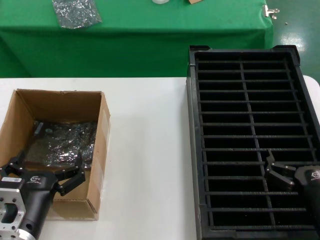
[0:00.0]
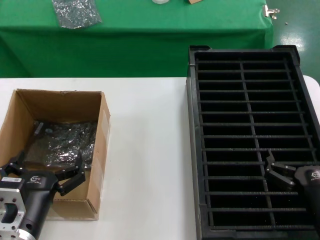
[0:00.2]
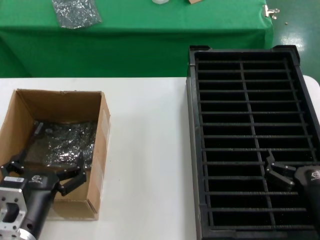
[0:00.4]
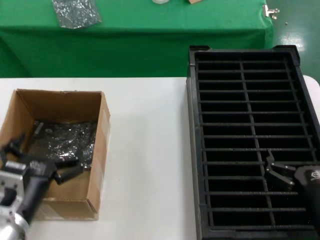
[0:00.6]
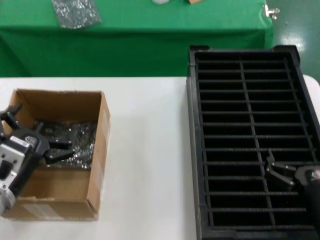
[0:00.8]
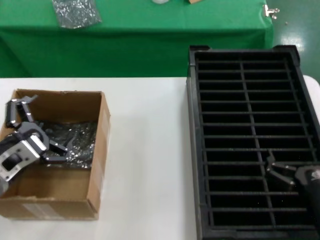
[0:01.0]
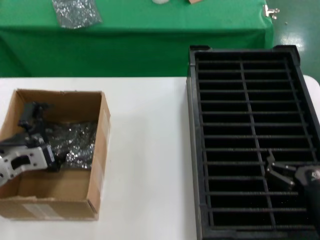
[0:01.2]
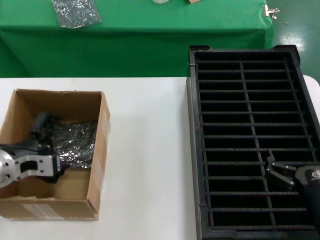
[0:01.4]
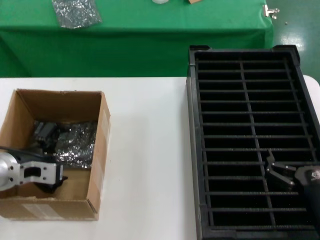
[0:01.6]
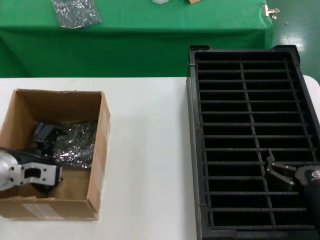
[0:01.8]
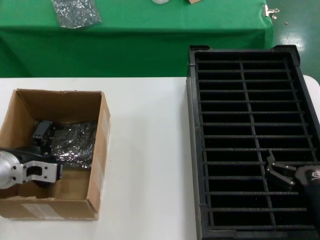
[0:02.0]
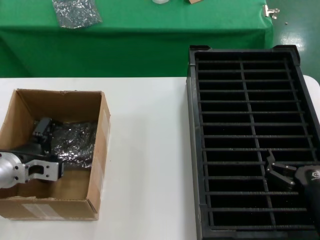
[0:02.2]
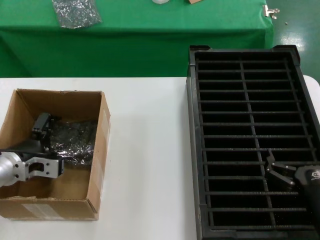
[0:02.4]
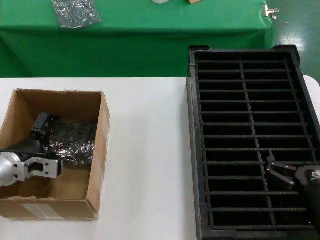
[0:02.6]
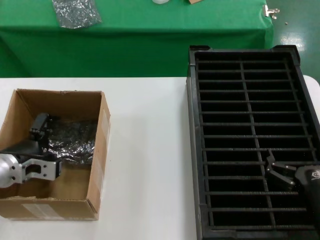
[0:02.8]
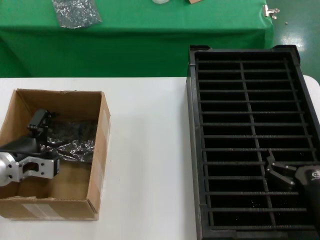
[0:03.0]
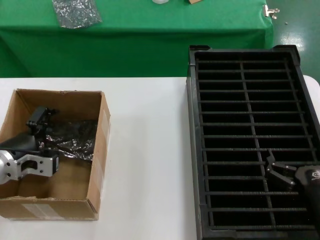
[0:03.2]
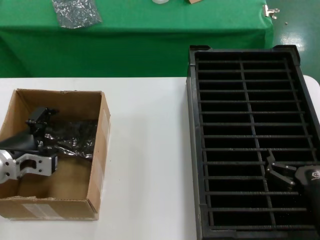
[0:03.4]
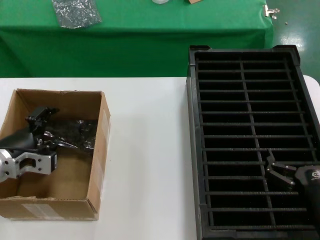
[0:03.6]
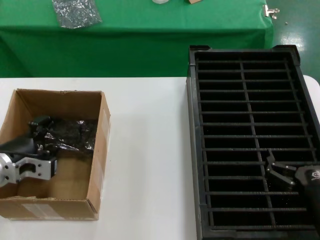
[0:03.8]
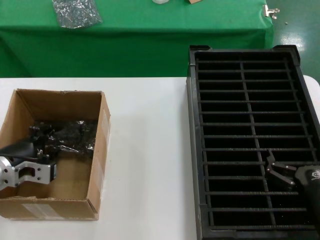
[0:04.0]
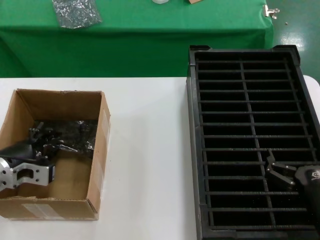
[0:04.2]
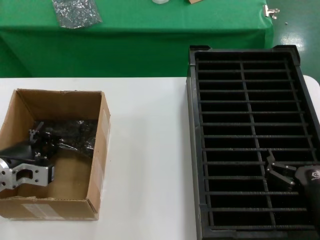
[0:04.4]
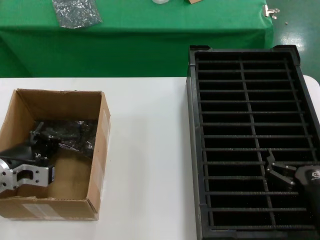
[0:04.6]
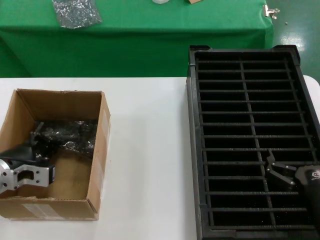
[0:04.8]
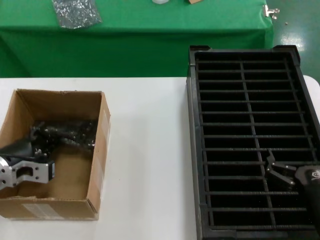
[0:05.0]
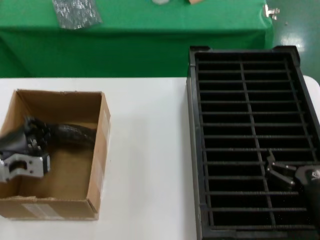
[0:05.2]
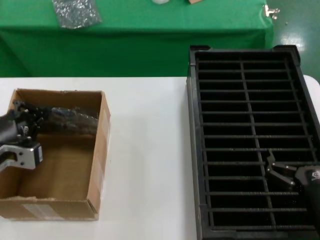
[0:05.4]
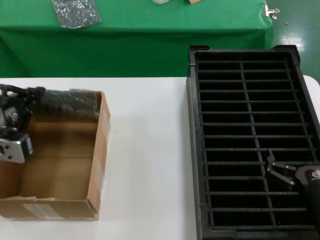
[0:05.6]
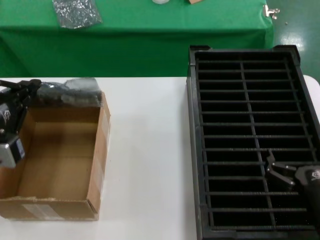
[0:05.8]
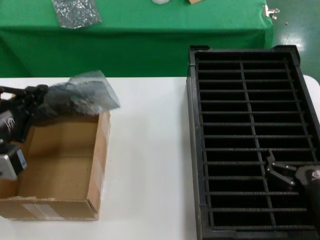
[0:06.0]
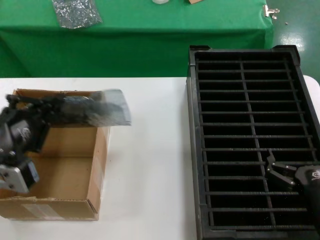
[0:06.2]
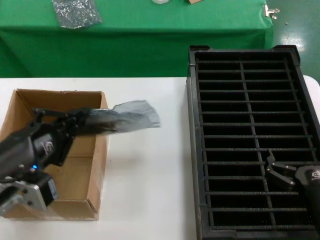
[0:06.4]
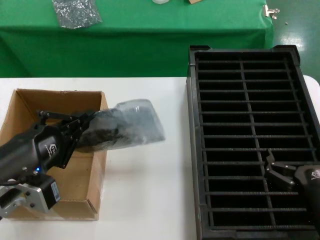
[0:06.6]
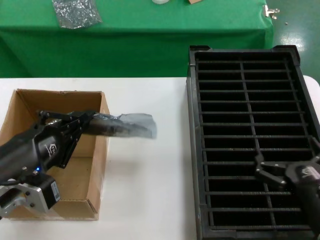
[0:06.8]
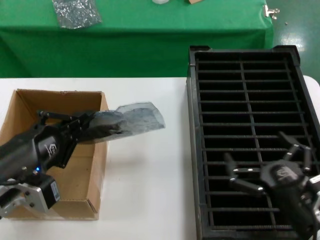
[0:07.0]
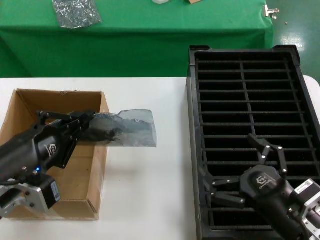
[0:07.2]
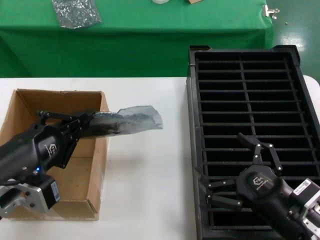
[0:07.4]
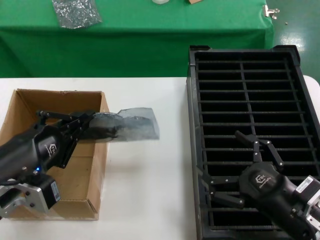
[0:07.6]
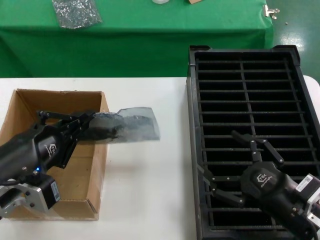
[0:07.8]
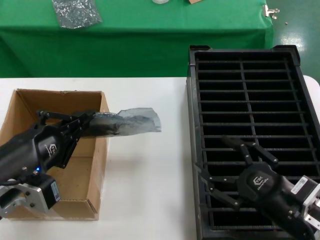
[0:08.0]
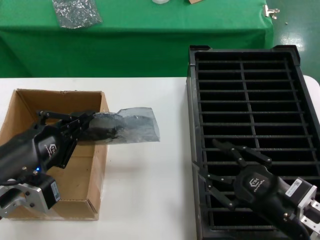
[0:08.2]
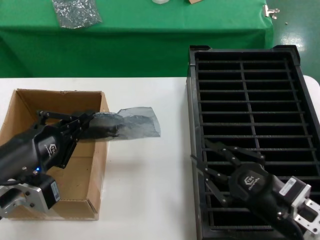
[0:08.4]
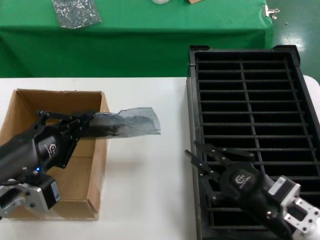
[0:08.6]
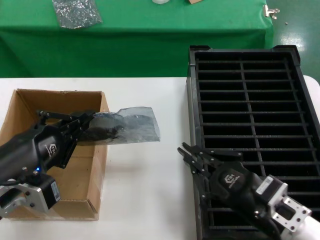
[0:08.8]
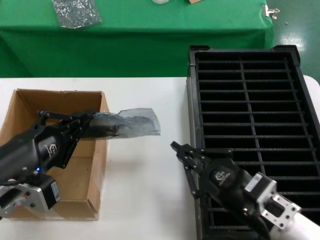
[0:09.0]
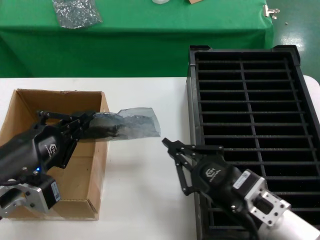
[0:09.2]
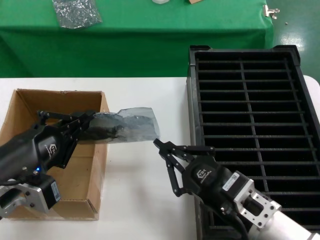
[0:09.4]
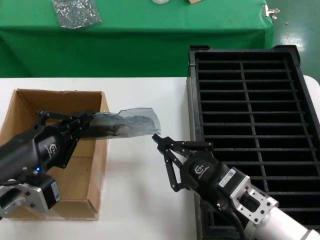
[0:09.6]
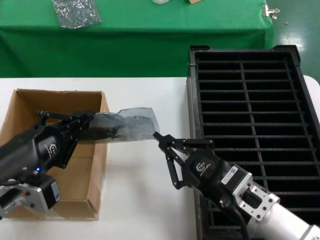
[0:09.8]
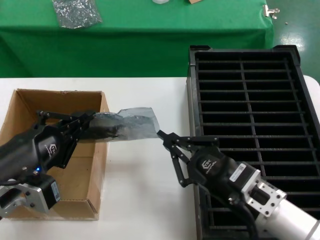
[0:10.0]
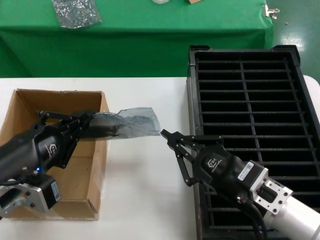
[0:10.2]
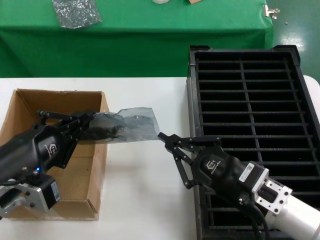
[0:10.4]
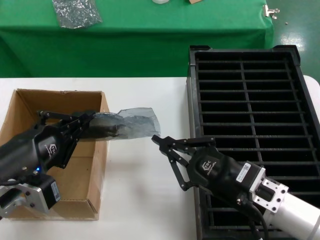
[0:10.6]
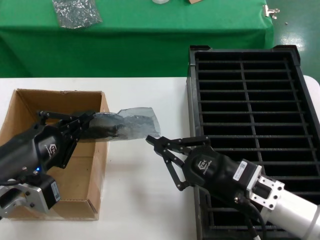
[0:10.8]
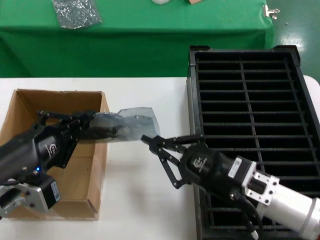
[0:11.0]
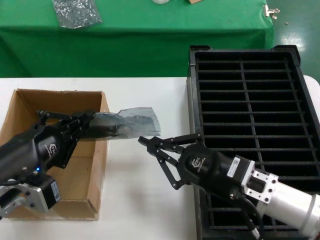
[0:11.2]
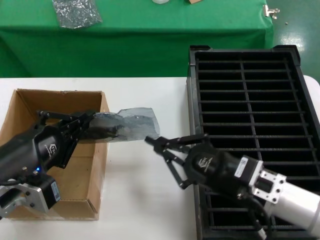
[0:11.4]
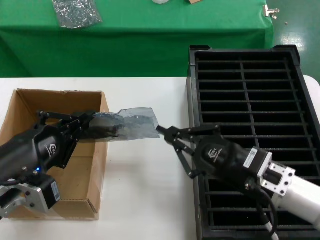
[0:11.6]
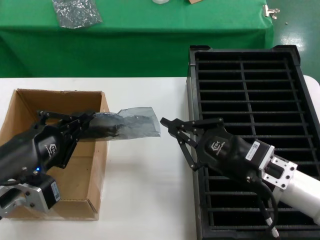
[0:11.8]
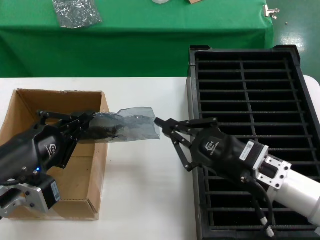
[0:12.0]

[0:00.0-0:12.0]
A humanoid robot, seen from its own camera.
Task of the whole recording: take out graphics card from box remove packaging put into black container.
Step, 0:00.0 to 0:04.4: Grasp the bag.
Step, 0:04.8 to 0:06.8: Lift the bag.
0:00.0 to 0:01.6: The left hand moves forward, to the left and upward, approximately 20 cm.
0:01.6 to 0:04.4: There are only small adjustments of the hands.
0:04.4 to 0:06.0: The left hand shifts about 15 cm backward and upward.
0:06.0 to 0:07.6: The left hand moves roughly 5 cm.
0:07.6 to 0:09.0: The right hand moves approximately 5 cm.
0:09.0 to 0:10.4: There are only small adjustments of the hands.
0:10.4 to 0:12.0: The hands stay close to where they were, moving slightly.

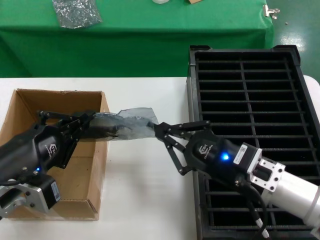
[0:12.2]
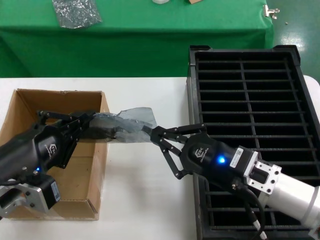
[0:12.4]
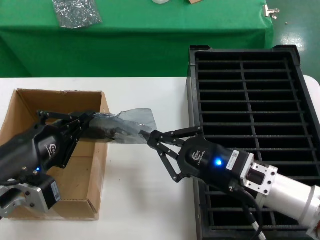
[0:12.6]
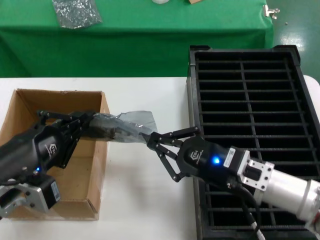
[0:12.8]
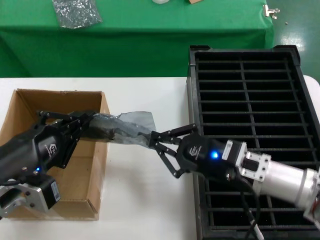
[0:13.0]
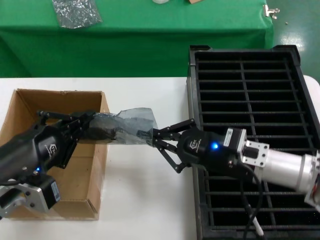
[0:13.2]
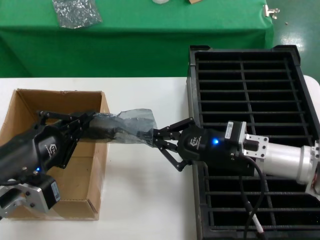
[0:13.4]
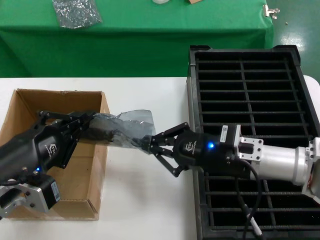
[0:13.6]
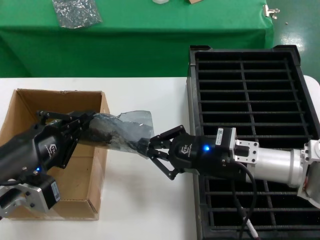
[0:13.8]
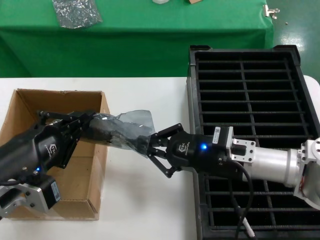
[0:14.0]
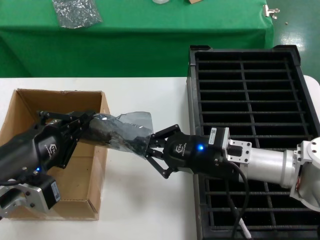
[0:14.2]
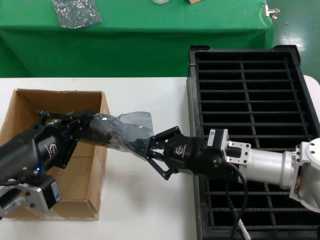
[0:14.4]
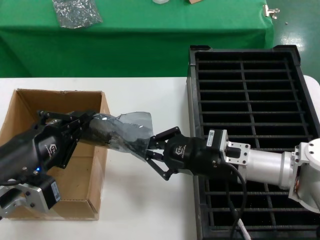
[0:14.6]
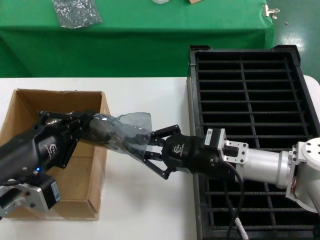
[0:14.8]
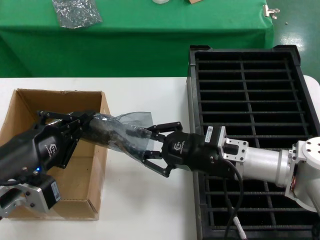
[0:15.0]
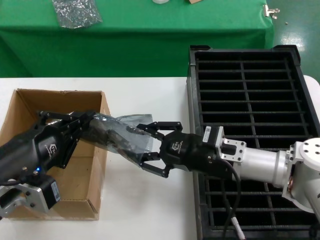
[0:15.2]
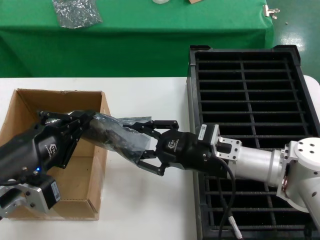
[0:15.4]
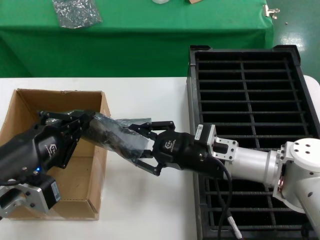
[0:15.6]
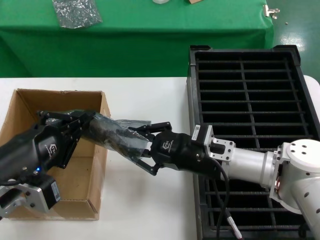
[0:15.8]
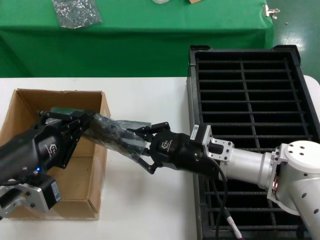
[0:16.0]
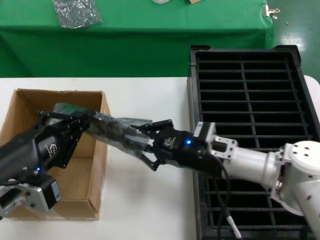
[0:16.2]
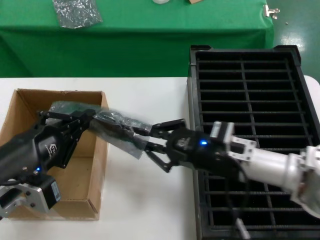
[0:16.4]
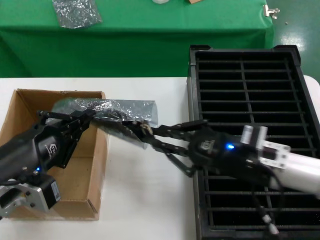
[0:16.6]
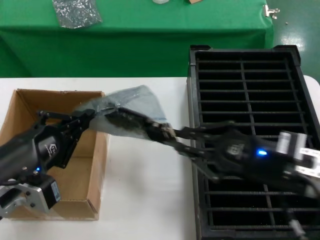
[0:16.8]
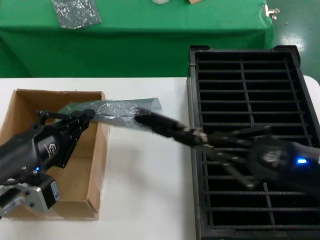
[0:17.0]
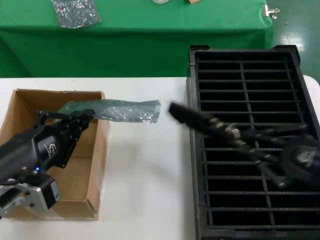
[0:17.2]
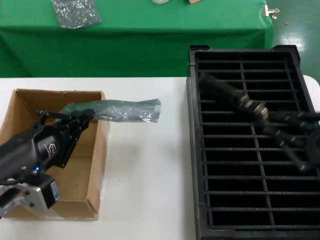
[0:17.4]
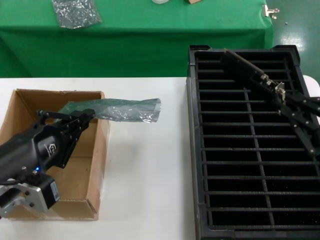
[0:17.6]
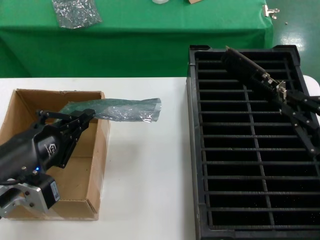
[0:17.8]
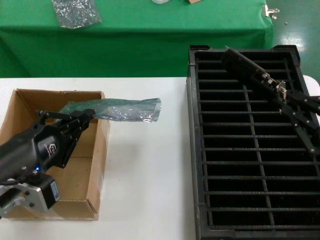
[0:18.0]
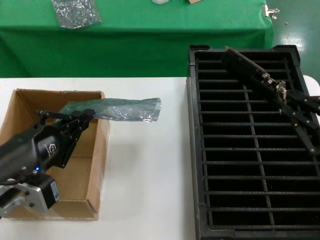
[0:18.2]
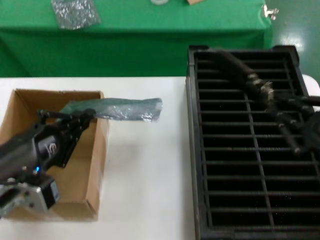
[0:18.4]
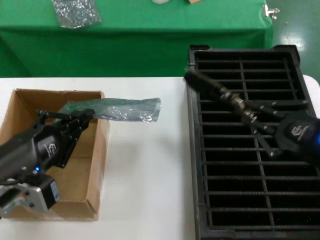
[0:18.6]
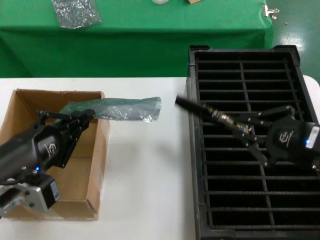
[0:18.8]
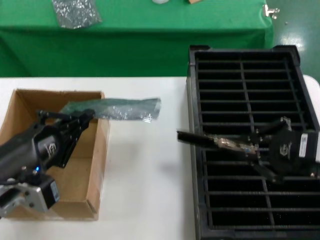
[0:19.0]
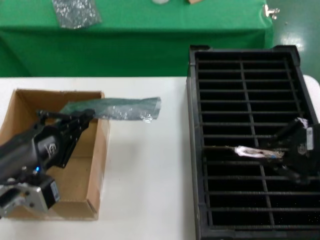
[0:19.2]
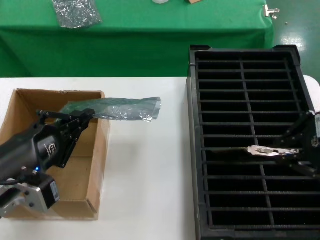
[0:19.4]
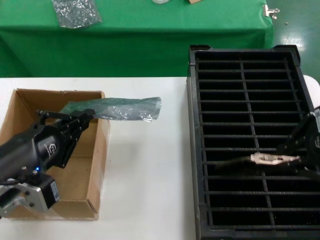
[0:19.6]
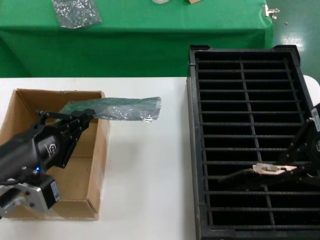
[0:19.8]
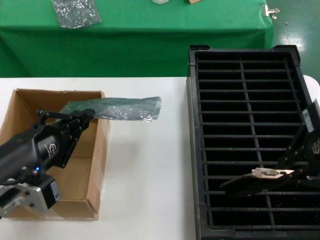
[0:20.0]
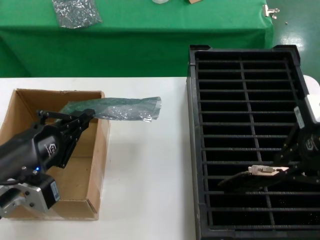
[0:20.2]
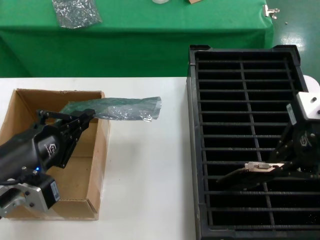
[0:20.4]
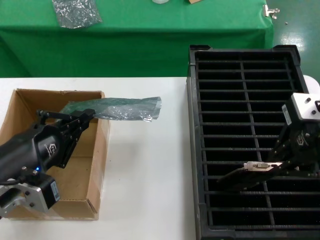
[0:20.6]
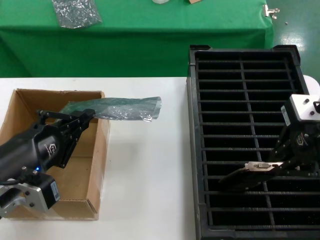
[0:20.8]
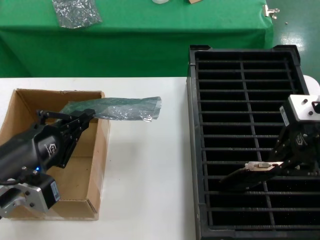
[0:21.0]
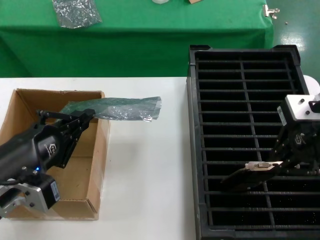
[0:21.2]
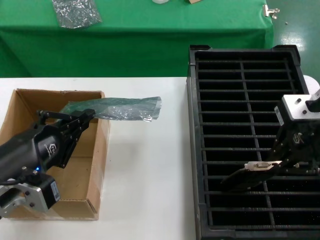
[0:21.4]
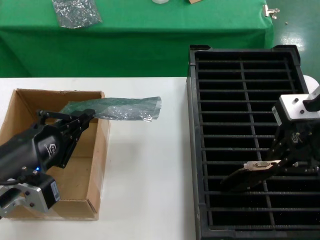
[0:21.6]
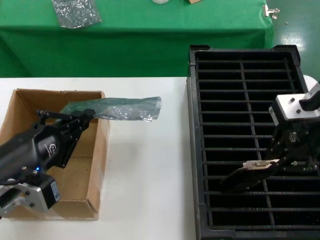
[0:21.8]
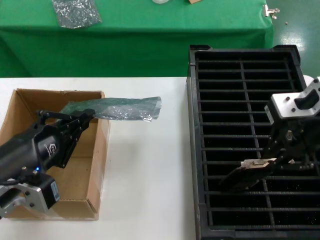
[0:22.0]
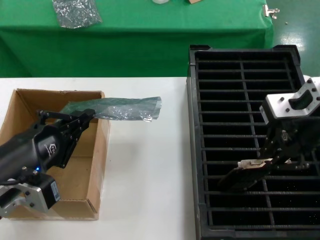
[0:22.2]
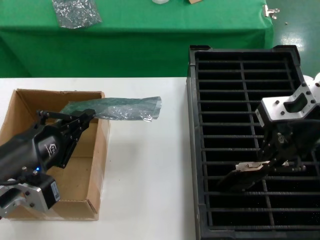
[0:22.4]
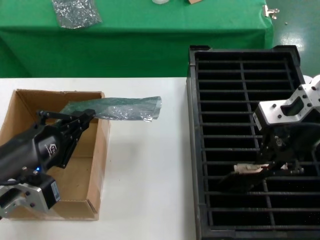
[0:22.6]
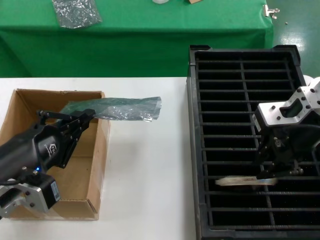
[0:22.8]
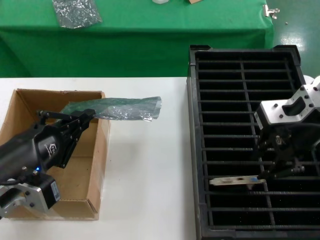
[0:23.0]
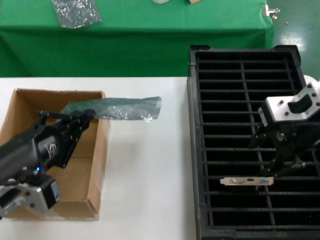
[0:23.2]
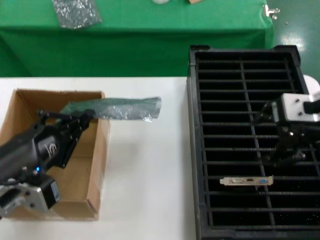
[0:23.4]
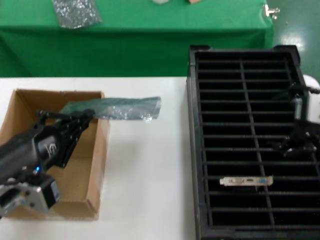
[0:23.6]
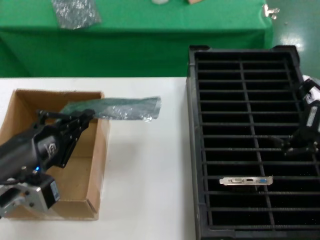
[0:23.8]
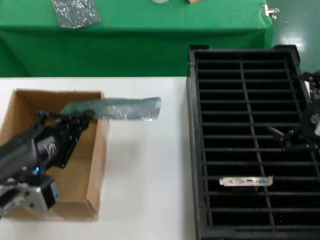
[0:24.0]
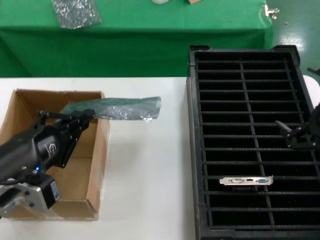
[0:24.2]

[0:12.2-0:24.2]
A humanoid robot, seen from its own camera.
Task of the whole recording: take out graphics card from box remove packaging put into black container.
Step, 0:12.2 to 0:17.0: Take out the hard disk of the bag.
Step, 0:17.4 to 0:23.0: Place the hard disk in the hard disk enclosure.
0:12.2 to 0:13.8: The right hand moves forward, roughly 10 cm.
0:13.8 to 0:15.2: The hands make only small movements.
0:15.2 to 0:16.6: The right hand is displaced backward by some 5 cm.
0:16.6 to 0:18.2: The right hand heads to the right and backward, covering about 20 cm.
0:18.2 to 0:19.8: The right hand moves upward and to the left, about 20 cm.
0:19.8 to 0:21.2: The right hand is displaced forward by approximately 5 cm.
0:21.2 to 0:22.6: The hands move only a little.
0:22.6 to 0:24.2: The right hand is displaced downward, to the right and backward by some 20 cm.
